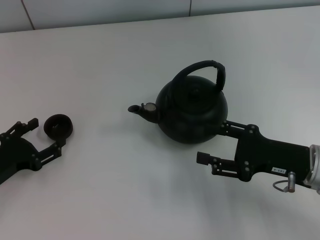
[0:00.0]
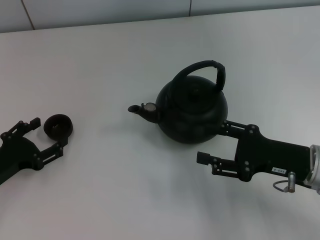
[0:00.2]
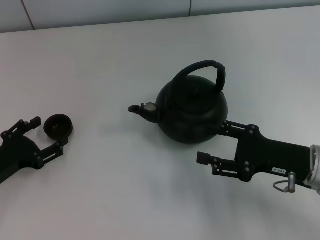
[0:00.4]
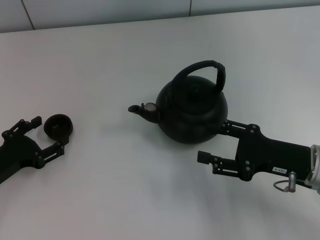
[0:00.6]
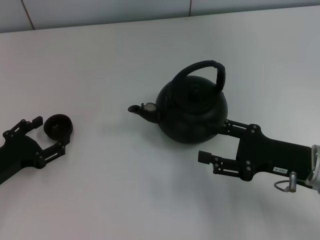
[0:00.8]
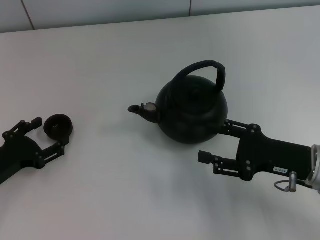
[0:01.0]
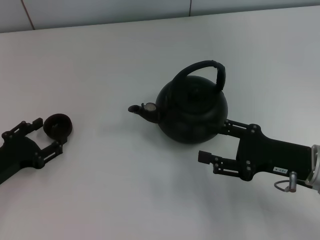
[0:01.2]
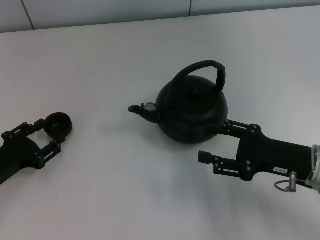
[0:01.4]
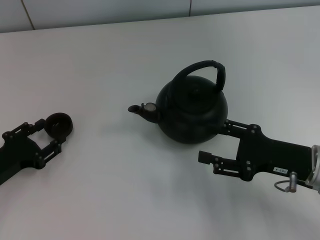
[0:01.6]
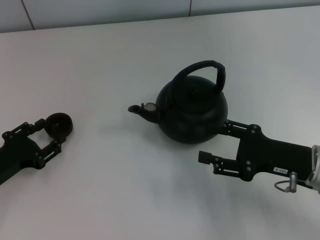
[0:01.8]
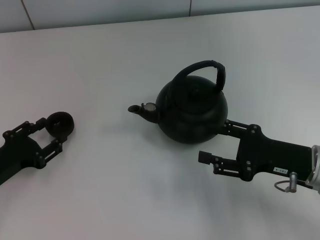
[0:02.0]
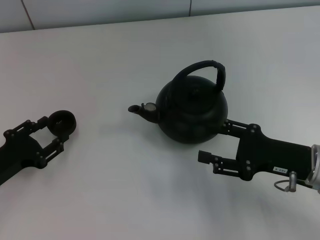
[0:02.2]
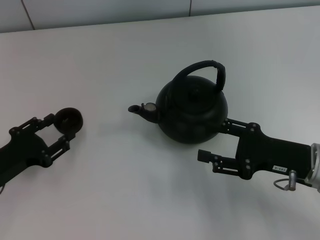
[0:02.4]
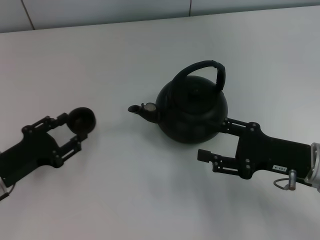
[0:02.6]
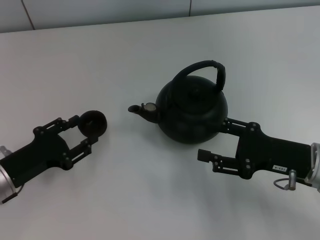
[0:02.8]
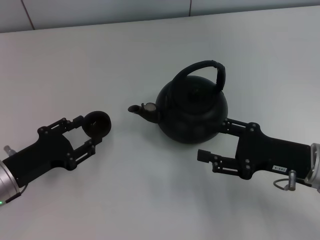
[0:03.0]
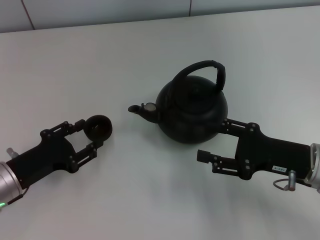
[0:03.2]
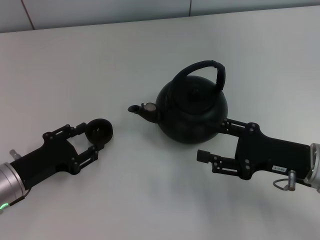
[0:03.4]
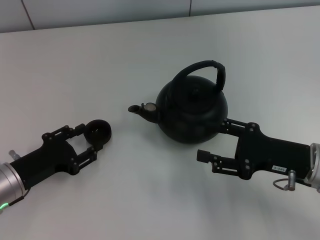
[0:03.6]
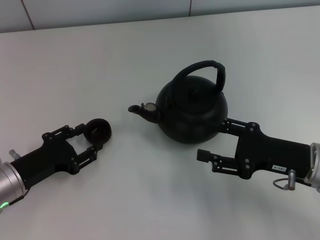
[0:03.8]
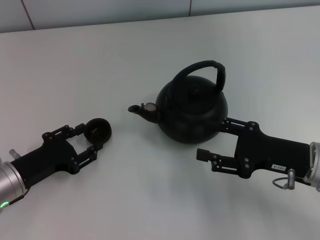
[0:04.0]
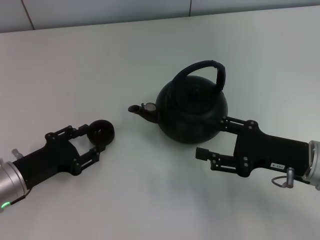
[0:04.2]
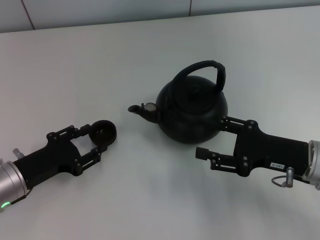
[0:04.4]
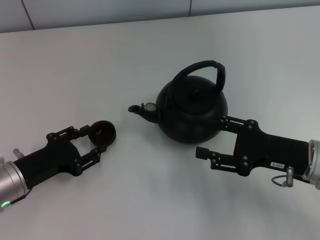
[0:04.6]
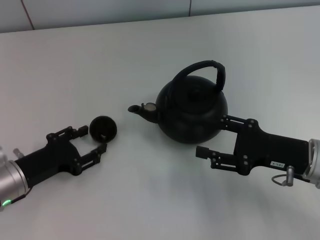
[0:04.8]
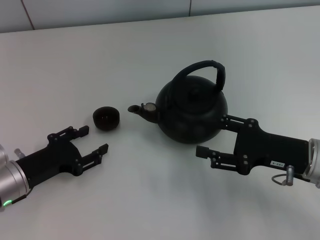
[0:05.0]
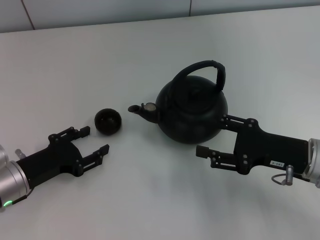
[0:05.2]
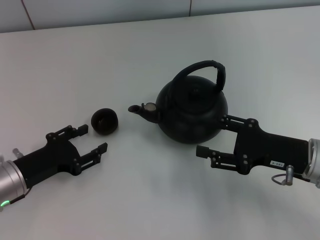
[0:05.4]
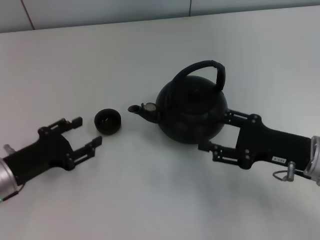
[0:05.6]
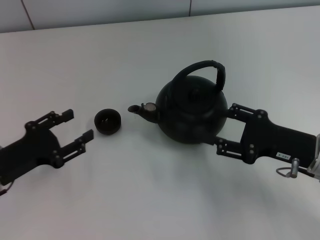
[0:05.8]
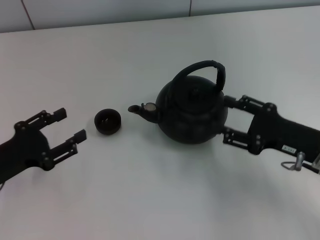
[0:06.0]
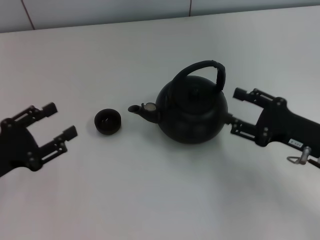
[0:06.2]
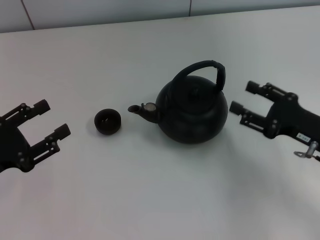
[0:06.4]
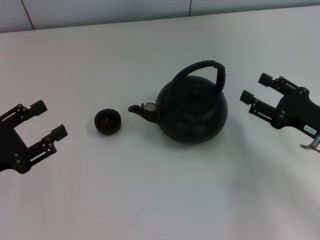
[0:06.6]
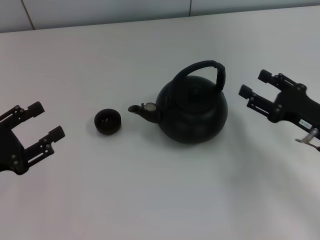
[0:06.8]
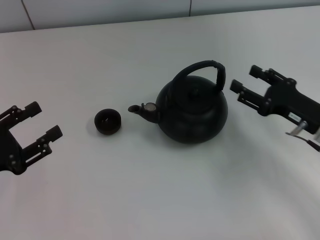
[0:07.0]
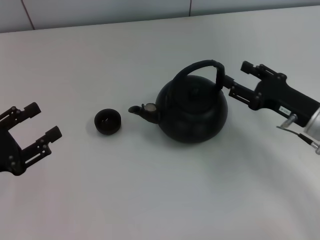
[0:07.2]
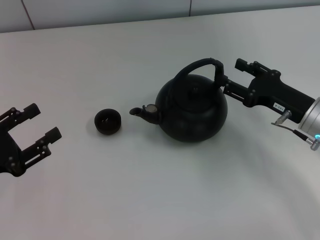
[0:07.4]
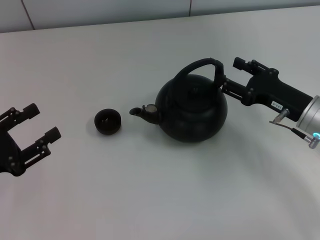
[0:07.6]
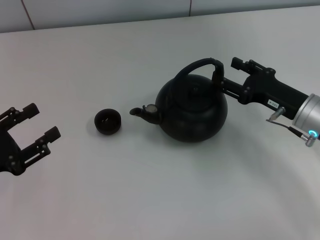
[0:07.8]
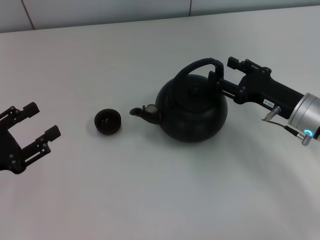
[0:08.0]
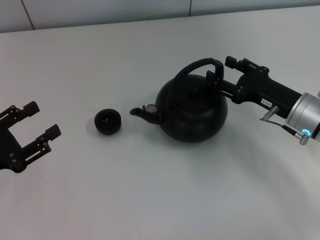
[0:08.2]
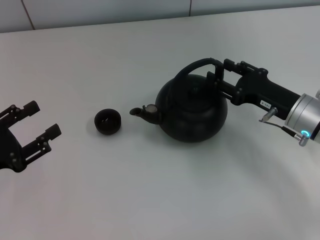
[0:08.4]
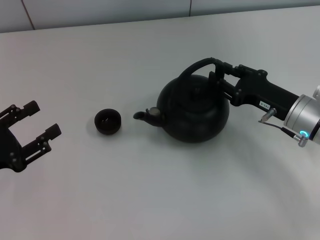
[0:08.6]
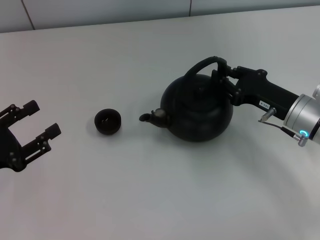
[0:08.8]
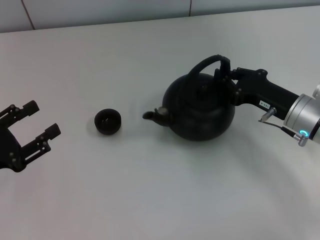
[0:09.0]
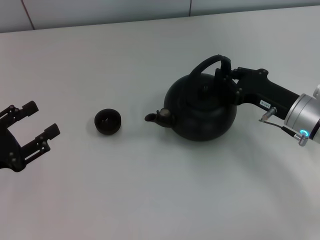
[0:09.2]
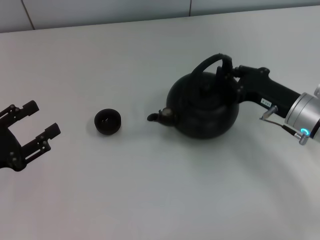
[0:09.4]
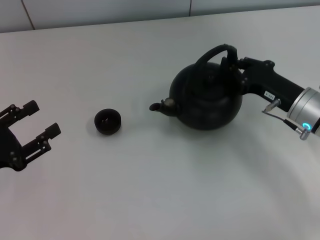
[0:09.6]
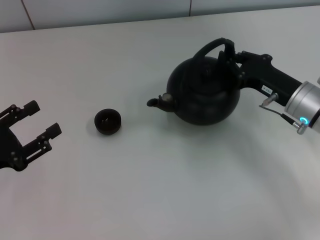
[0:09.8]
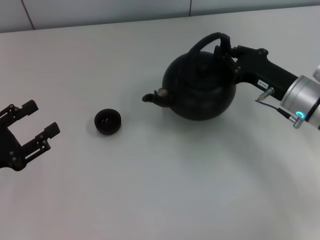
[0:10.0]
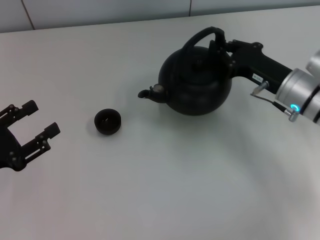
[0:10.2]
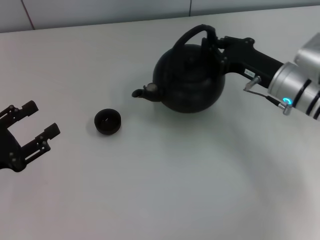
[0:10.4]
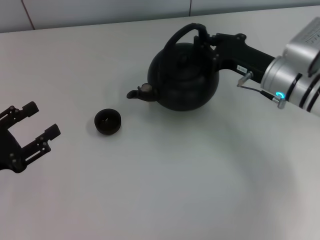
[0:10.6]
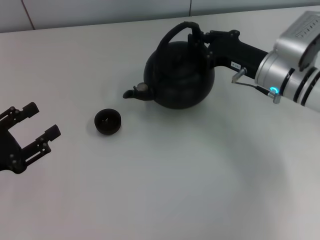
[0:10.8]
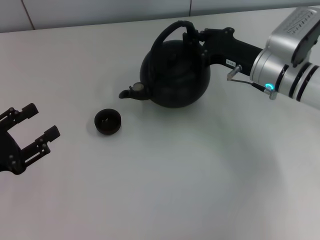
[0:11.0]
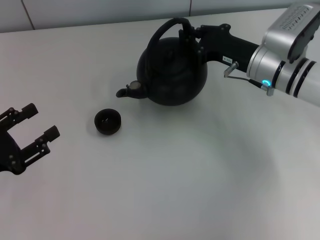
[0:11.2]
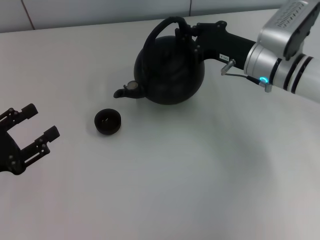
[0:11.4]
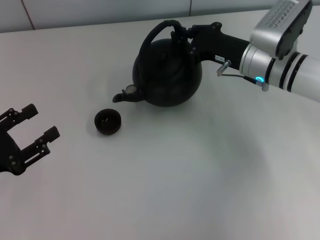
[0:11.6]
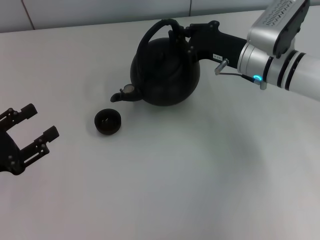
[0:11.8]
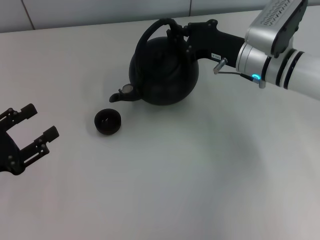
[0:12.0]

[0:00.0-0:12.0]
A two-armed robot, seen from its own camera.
Task of the whole recording: Grasp the handle of the teapot with one hand and pour tea into the teacup.
Step, 0:00.0 to 0:02.4: Pick up the teacup with the left gripper.
Step, 0:02.6 to 0:05.6: Place the teacup in the center of view with the left gripper.
Step, 0:05.8 to 0:10.0: Pick up the teapot with the right gripper.
0:00.0 to 0:01.6: The left gripper closes up.
0:01.6 to 0:04.4: There are only small adjustments of the grippers.
0:04.4 to 0:06.0: The left gripper opens.
0:06.0 to 0:07.6: The right gripper is displaced forward by approximately 5 cm.
0:07.6 to 0:09.0: The right gripper closes its fingers.
0:09.0 to 0:10.4: The right gripper shifts by roughly 5 cm.
0:10.4 to 0:12.0: The right gripper changes place by some 5 cm.

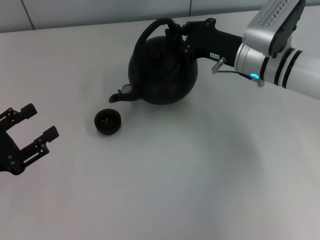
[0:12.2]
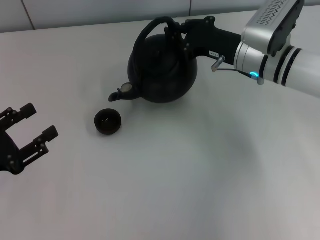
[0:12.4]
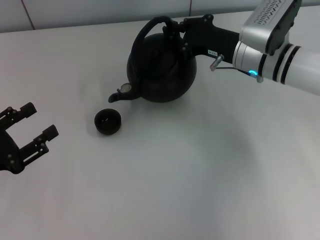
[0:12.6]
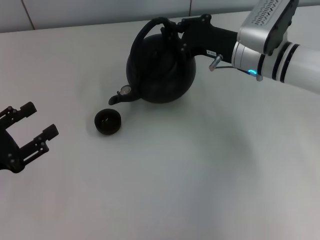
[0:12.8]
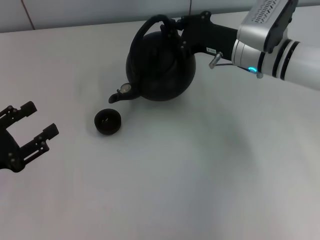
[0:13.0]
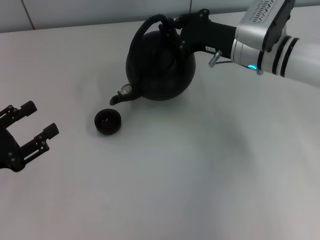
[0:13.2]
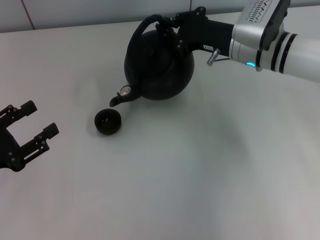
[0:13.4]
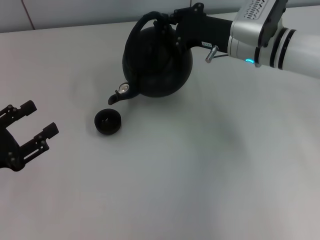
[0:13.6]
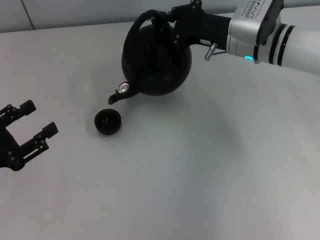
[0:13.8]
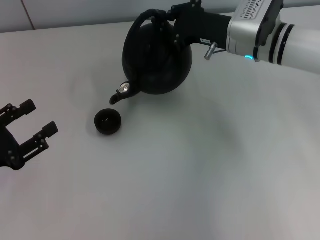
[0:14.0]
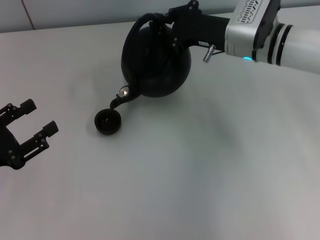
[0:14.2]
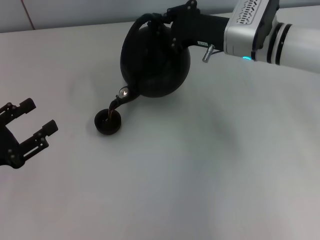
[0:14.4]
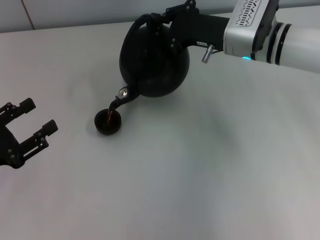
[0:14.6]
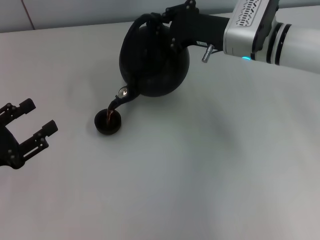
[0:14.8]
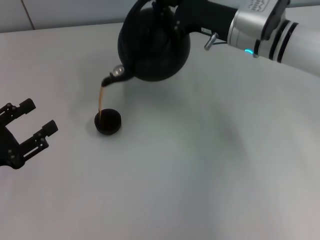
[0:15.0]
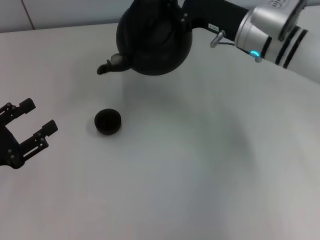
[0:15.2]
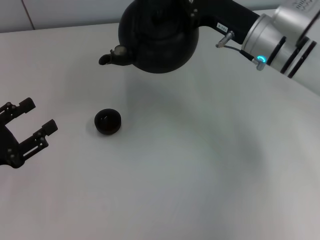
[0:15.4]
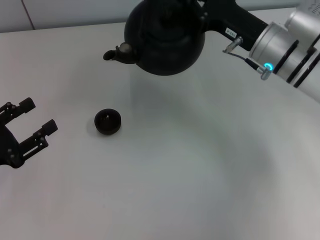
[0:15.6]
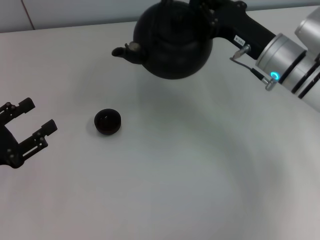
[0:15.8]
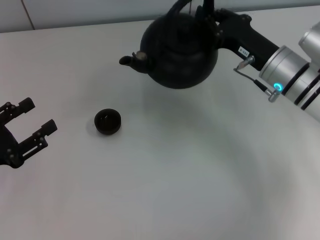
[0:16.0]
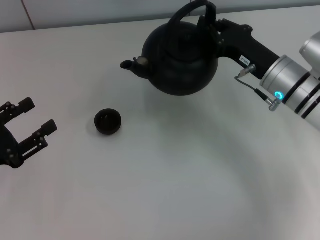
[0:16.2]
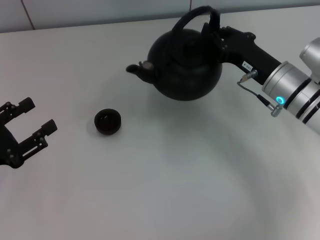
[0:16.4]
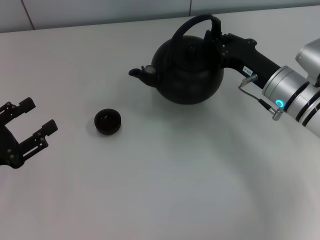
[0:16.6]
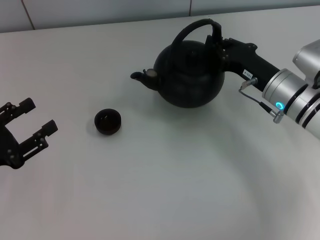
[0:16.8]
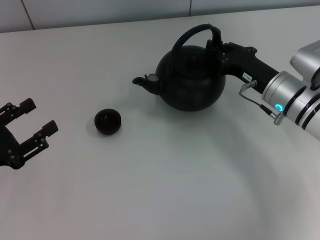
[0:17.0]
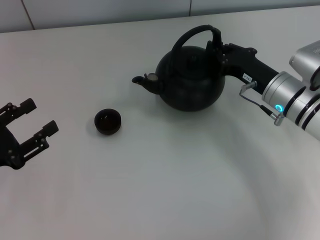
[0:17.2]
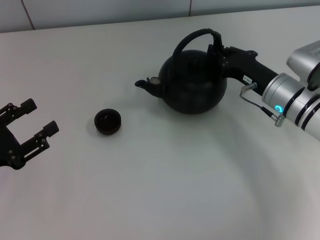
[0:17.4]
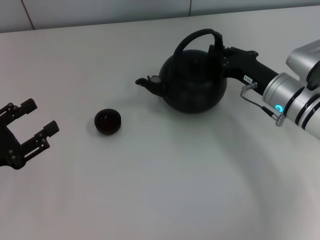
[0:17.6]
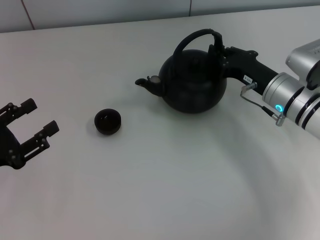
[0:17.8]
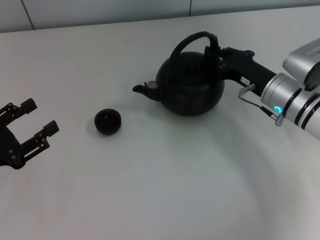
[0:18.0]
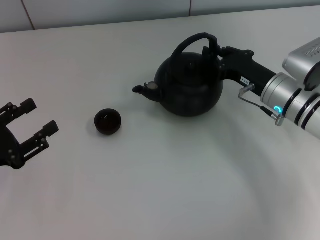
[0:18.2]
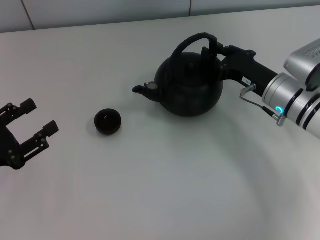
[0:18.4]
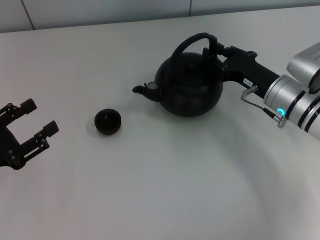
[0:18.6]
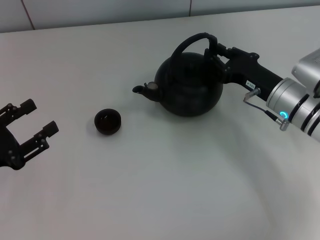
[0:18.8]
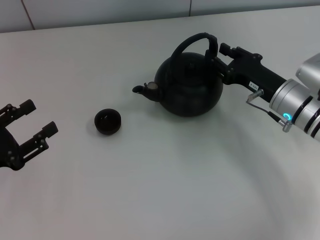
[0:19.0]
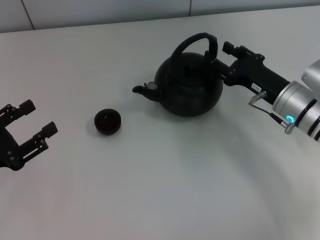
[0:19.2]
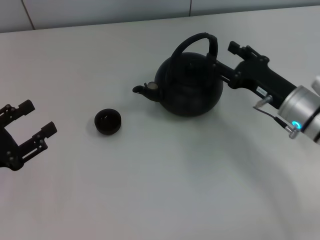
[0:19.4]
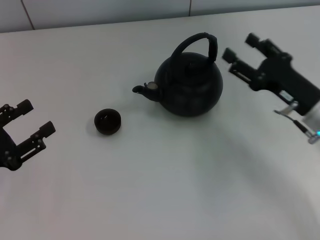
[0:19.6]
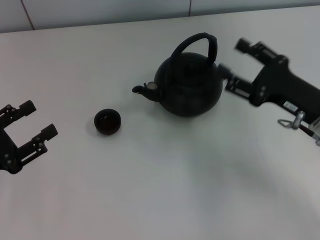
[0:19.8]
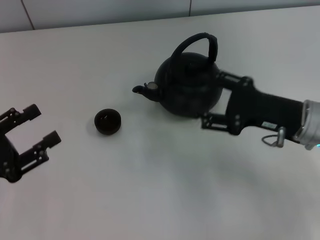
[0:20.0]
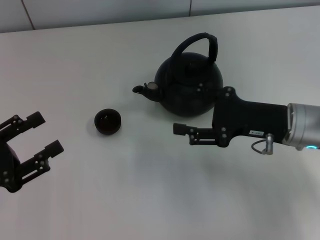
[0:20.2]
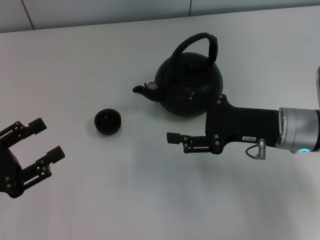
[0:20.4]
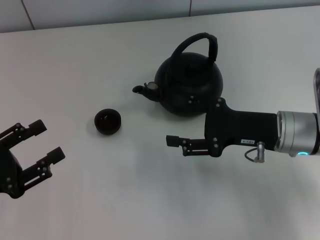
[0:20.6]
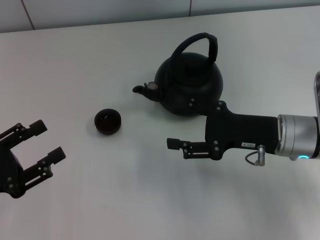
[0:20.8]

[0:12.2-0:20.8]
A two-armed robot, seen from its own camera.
Task of the whole recording: Grasp the handle of the teapot with one hand and pour tea into the teacup.
Step, 0:15.4 to 0:19.4: Put down the teapot with the right gripper.
0:12.2 to 0:15.0: The grippers move only a little.
0:15.0 to 0:16.6: The right gripper shifts about 10 cm backward and downward.
0:16.6 to 0:18.0: The grippers move only a little.
0:18.0 to 0:19.4: The right gripper opens its fingers.
